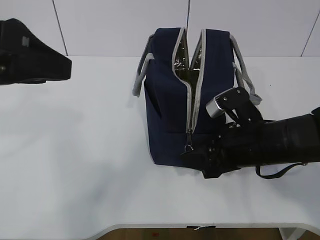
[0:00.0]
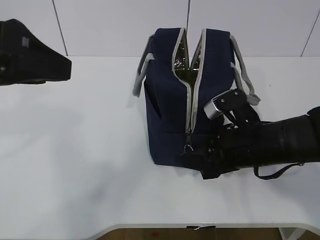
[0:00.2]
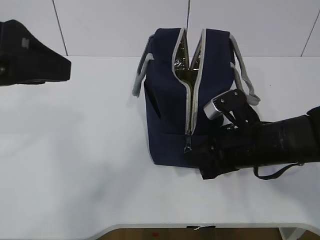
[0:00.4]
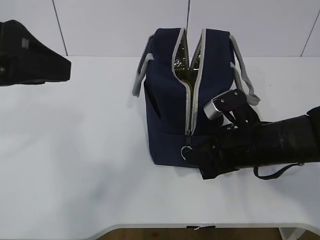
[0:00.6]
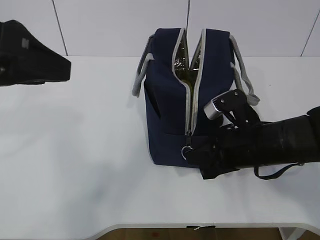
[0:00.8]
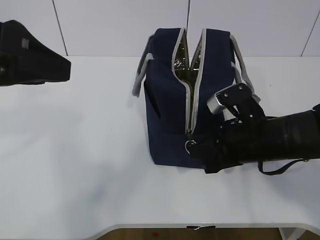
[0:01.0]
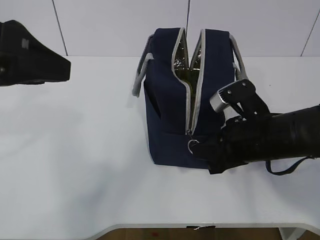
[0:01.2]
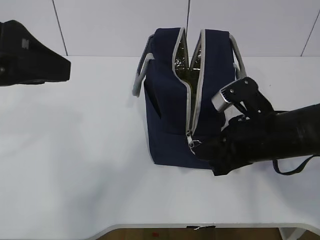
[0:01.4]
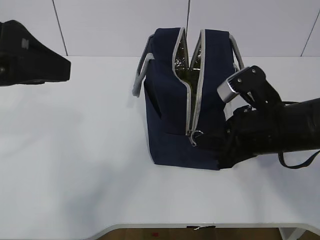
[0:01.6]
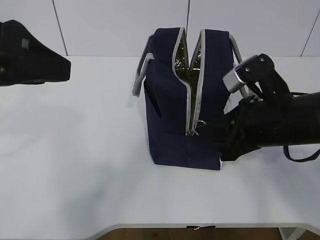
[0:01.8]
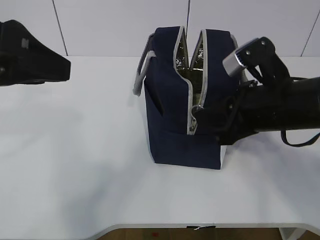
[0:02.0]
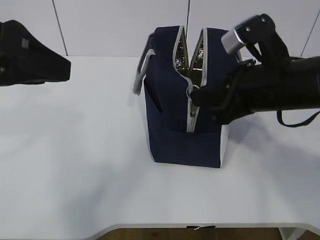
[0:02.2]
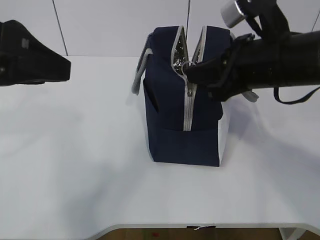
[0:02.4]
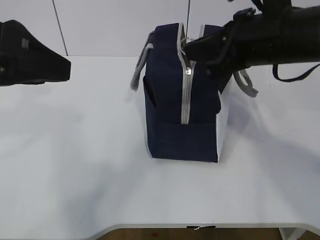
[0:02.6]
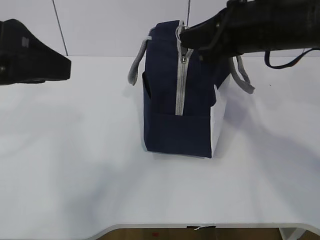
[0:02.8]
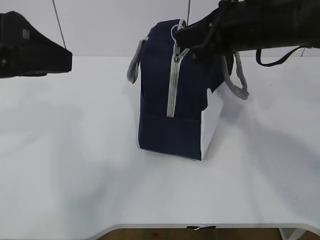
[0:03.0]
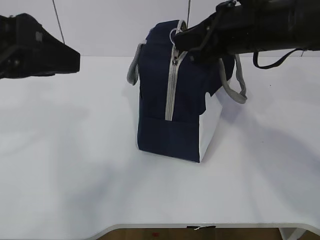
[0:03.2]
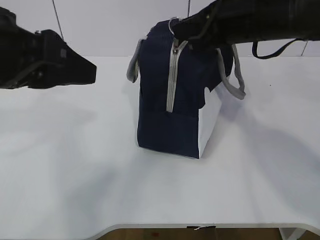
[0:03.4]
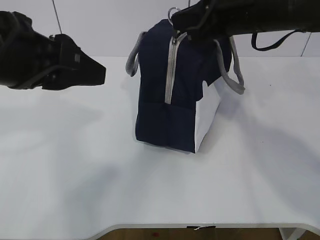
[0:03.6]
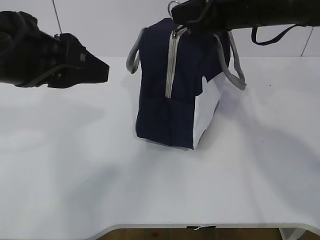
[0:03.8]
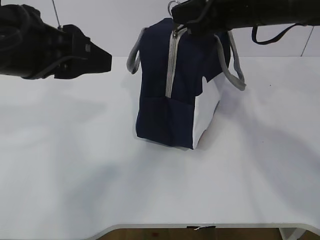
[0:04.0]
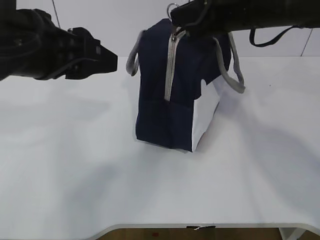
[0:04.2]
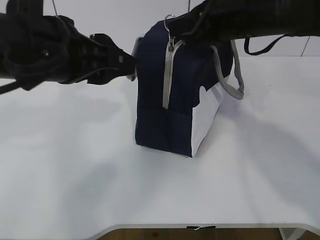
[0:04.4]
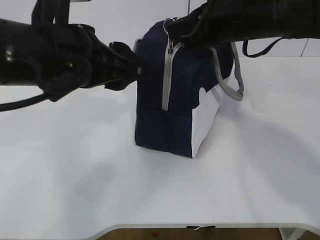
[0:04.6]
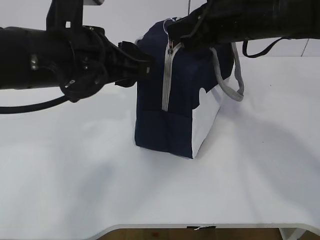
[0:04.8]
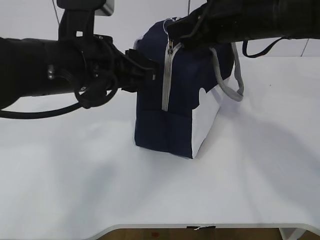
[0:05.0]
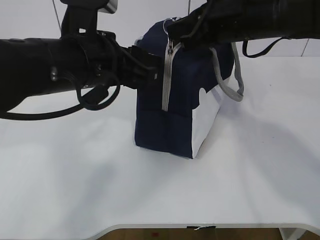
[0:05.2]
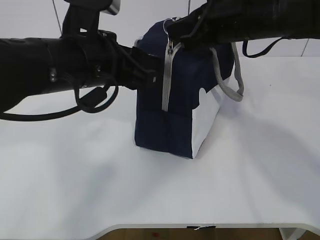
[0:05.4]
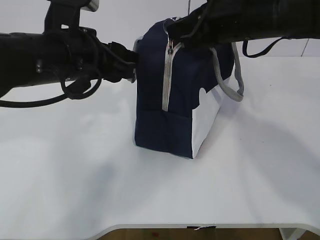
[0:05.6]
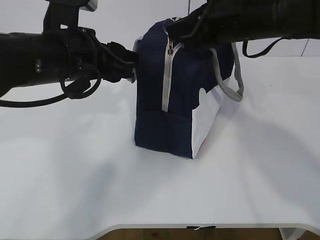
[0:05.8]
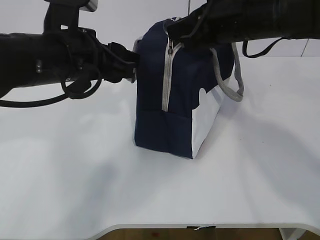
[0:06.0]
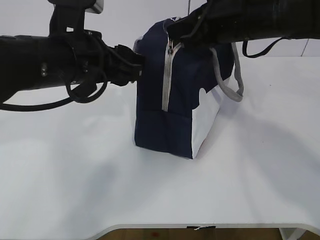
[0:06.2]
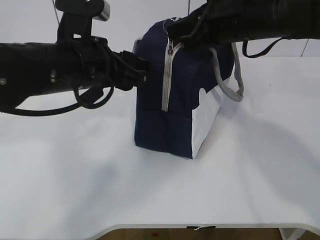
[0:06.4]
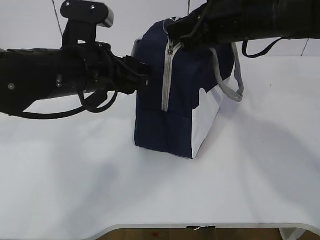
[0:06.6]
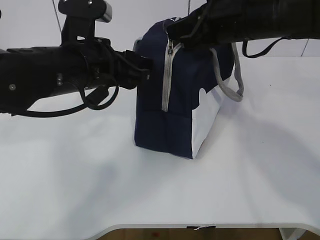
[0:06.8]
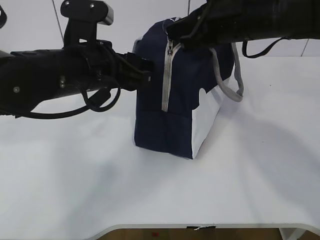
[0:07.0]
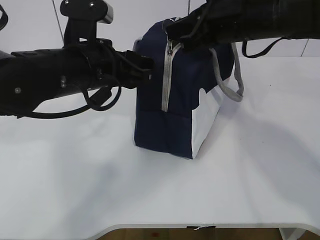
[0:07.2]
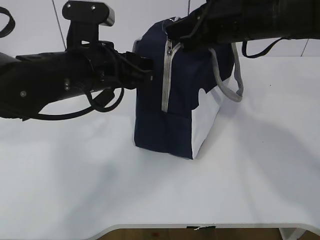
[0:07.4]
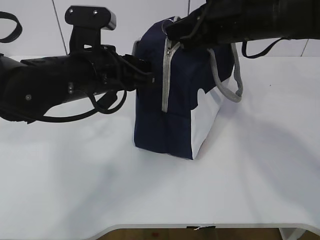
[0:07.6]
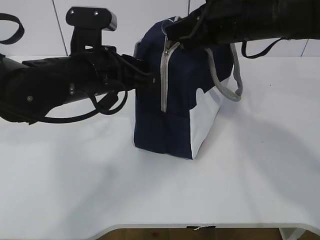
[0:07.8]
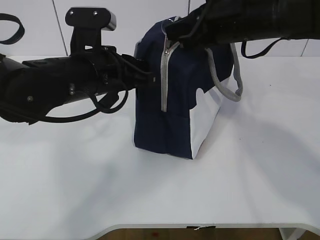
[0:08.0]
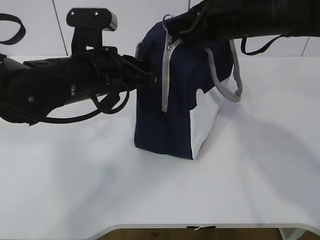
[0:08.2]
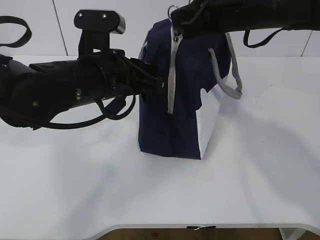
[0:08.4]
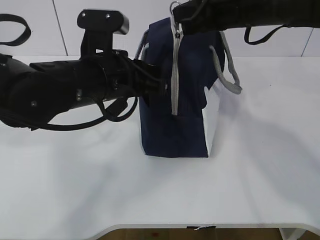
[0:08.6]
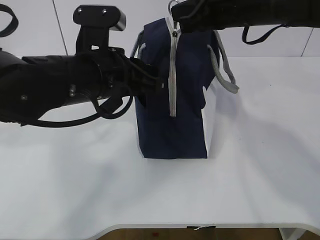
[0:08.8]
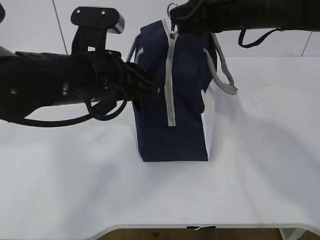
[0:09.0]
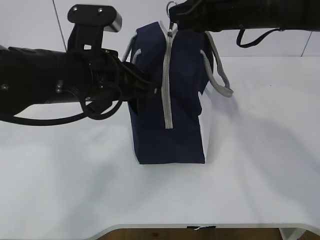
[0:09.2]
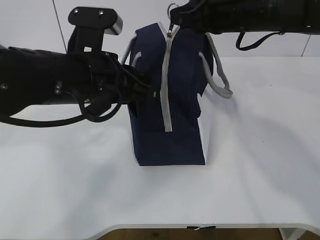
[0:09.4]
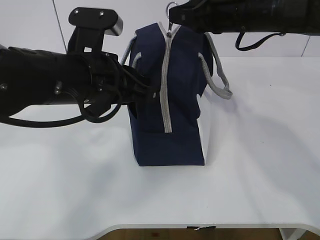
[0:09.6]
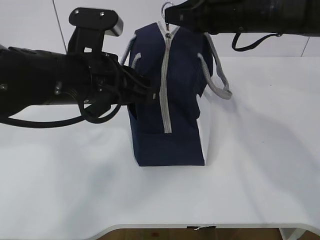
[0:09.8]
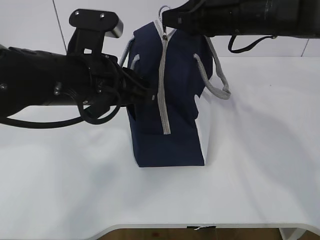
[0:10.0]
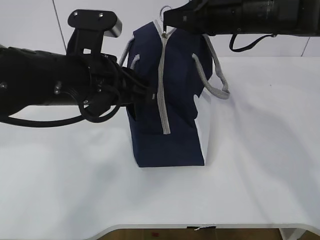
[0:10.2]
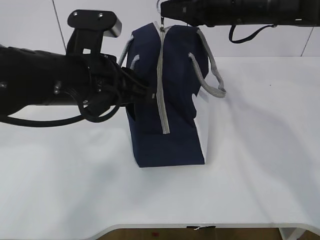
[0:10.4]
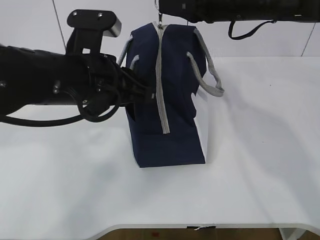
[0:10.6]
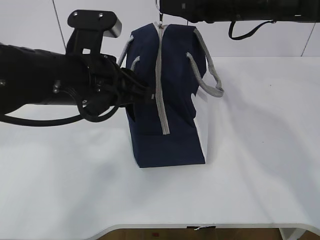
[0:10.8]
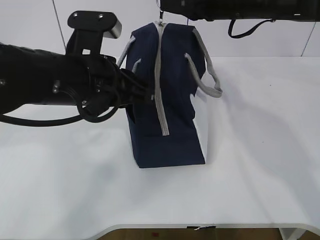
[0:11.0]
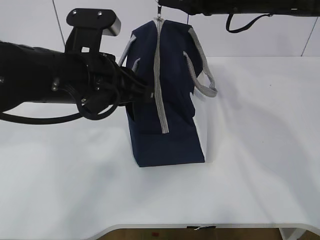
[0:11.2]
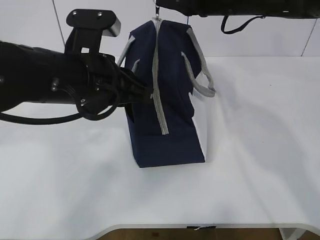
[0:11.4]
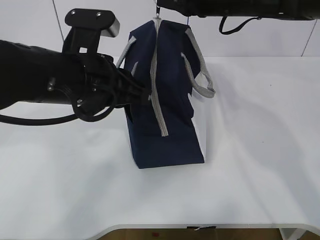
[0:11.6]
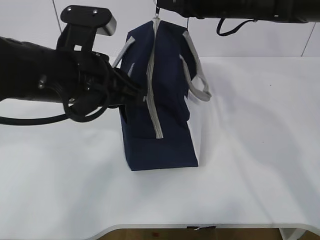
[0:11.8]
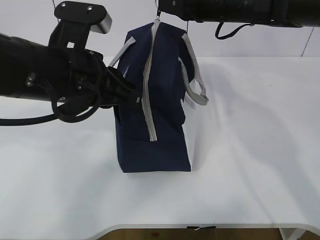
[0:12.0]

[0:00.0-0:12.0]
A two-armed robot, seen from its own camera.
0:00.0 to 0:01.6: The right gripper closes up.
0:01.6 to 0:03.0: The right gripper travels upward and forward by roughly 15 cm.
0:03.0 to 0:04.4: The left gripper heads to the right and forward, covering about 10 cm.
0:04.4 to 0:06.0: The left gripper is displaced forward by some 5 cm.
0:06.0 to 0:07.6: The left gripper closes up.
0:07.6 to 0:09.0: The left gripper closes.
0:09.0 to 0:10.4: The grippers stay close to where they were, moving slightly.
0:10.4 to 0:12.0: The right gripper goes some 5 cm forward.

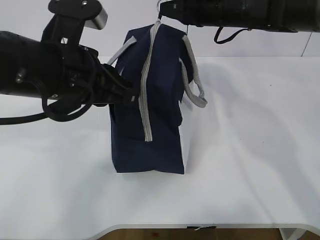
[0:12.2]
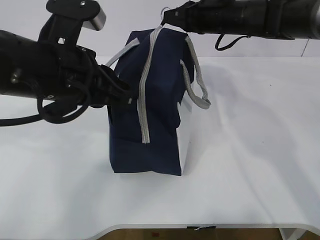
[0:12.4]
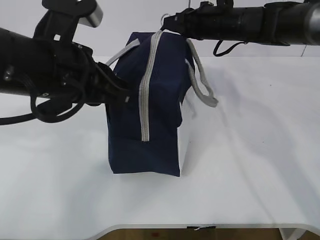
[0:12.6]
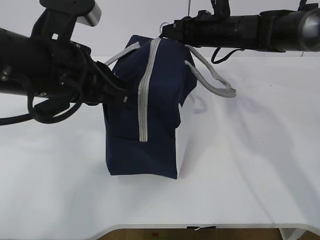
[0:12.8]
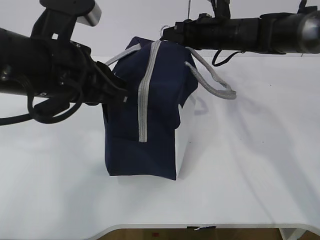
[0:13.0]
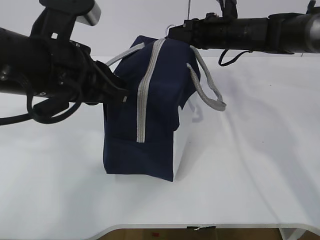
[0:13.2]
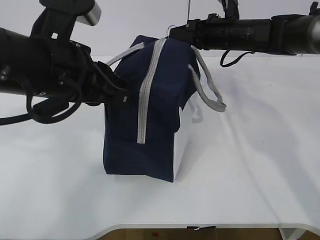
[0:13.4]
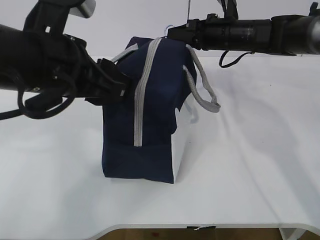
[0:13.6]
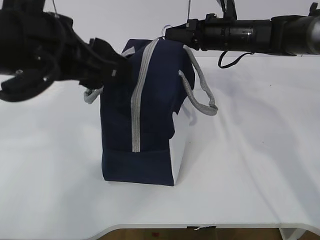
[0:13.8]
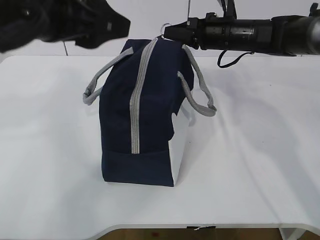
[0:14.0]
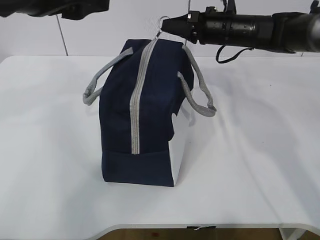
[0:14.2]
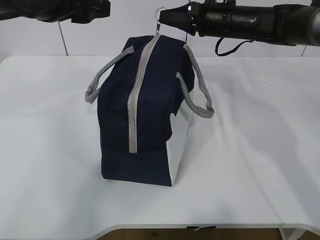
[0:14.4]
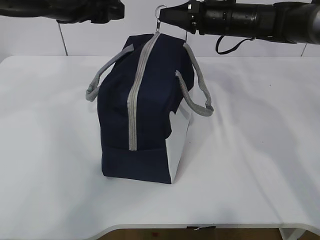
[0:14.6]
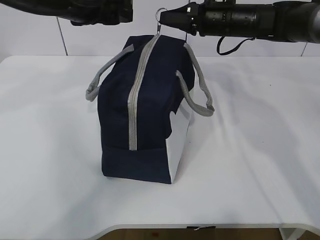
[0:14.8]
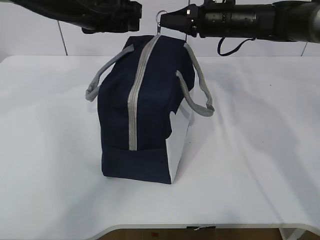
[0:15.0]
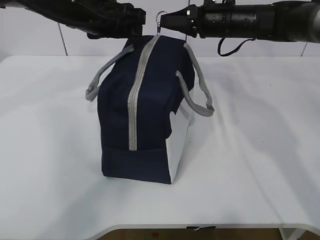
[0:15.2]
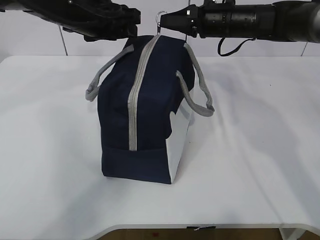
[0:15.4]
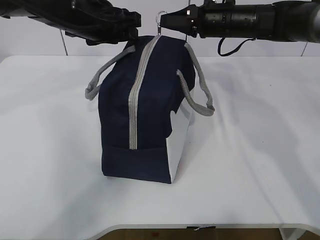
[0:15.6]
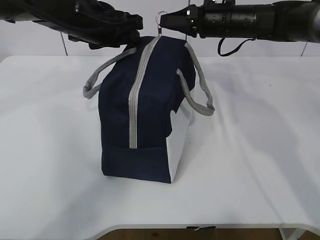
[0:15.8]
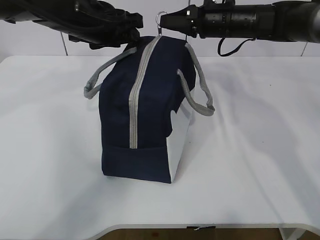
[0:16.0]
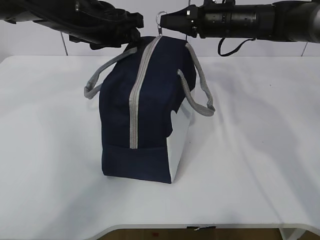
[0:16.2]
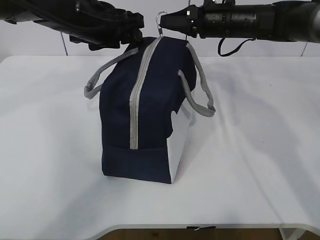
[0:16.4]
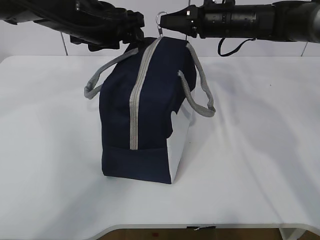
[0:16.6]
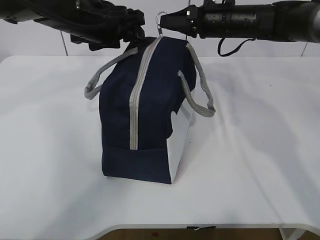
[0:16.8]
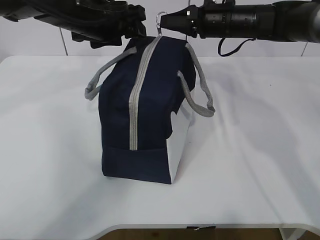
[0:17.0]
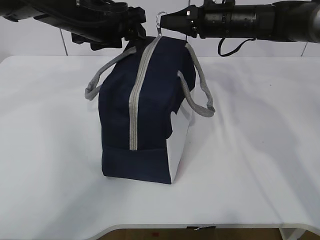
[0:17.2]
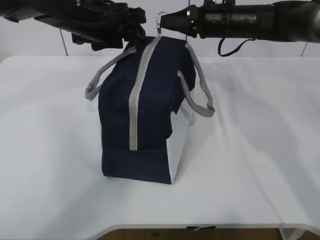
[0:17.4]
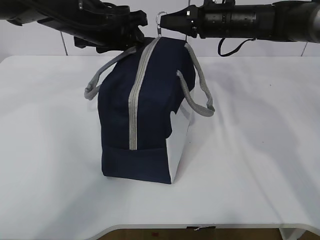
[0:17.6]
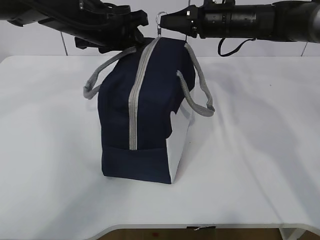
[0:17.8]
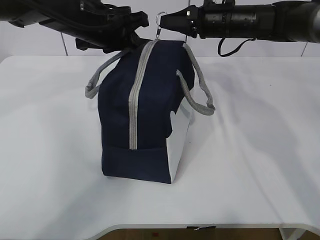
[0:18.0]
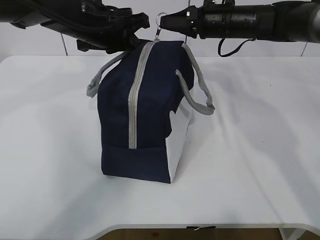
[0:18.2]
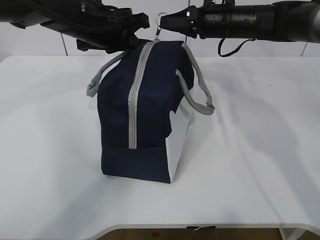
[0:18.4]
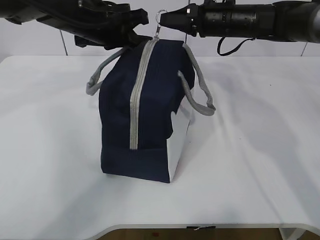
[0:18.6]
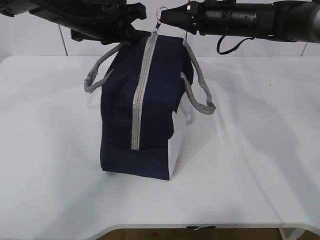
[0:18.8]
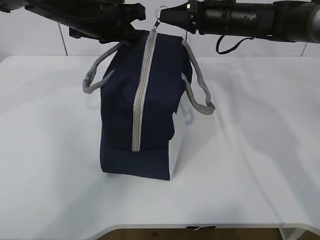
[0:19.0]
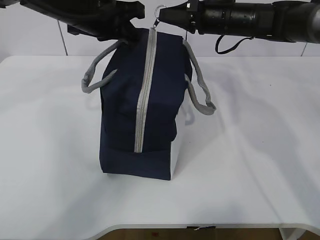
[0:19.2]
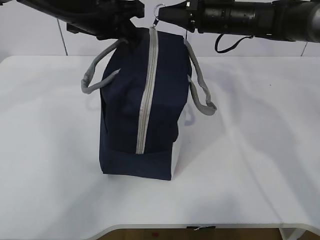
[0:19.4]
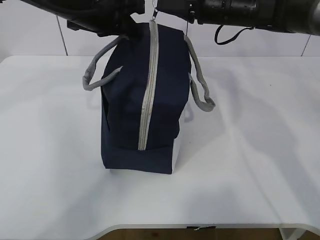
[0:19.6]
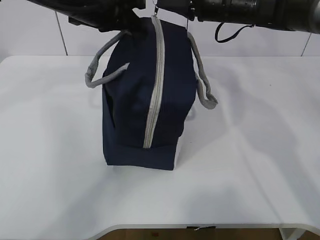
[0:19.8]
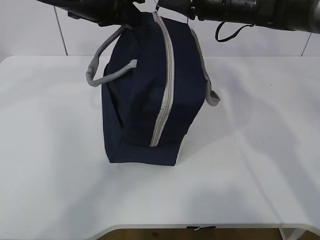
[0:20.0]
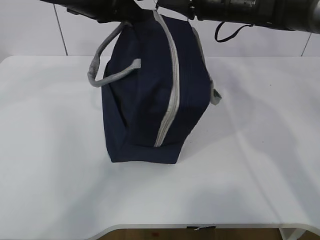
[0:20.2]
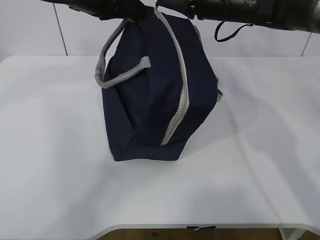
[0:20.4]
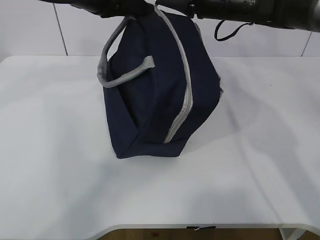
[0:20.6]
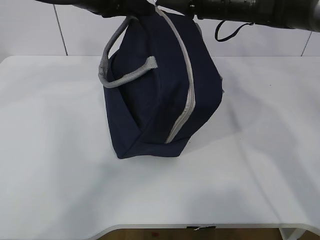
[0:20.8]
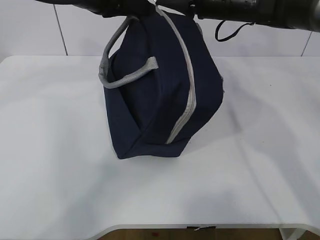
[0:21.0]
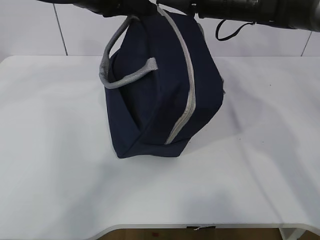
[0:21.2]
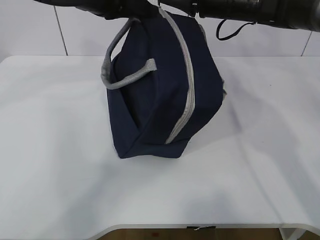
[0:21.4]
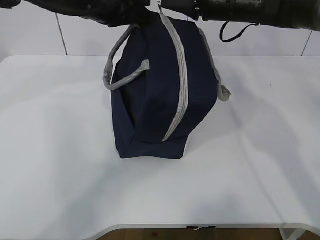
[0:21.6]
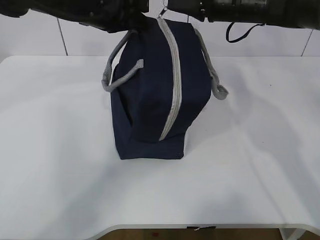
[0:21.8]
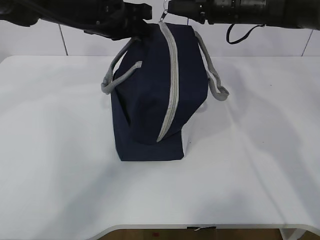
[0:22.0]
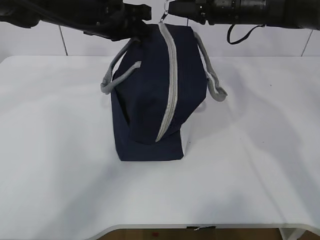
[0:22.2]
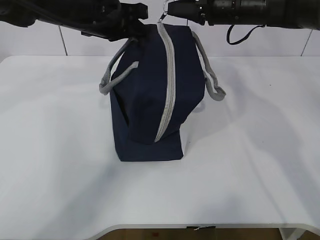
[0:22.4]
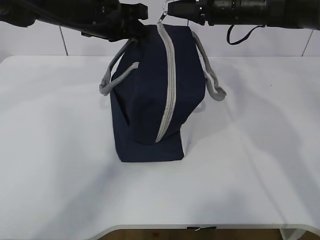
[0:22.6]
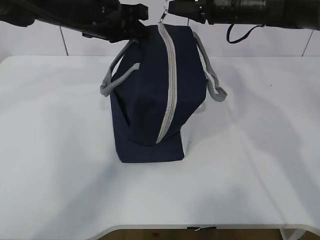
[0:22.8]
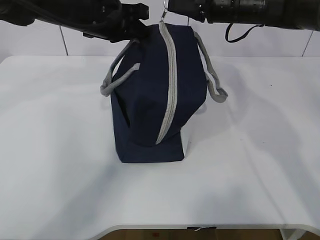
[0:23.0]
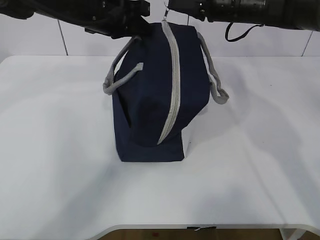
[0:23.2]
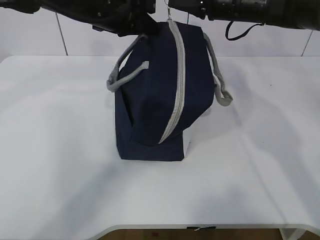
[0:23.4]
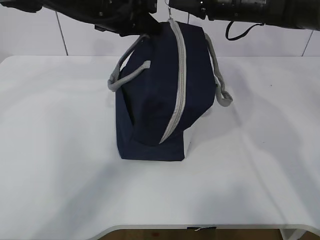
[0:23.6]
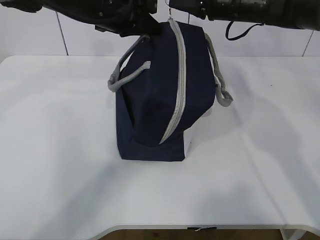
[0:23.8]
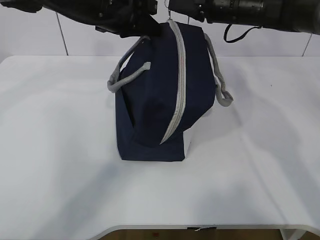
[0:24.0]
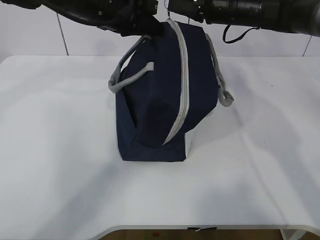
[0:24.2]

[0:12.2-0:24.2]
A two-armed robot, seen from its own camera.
Step, 0:12.2 to 0:14.2: Pull the zipper with your right hand.
Step, 0:14.4 to 0:15.0: Grab the lunch bag with your left hand.
0:12.2 to 0:13.8: The left gripper opens. The right gripper moves downward, approximately 5 cm.
0:13.8 to 0:15.2: The left gripper heads forward, covering some 15 cm.
0:15.2 to 0:16.6: There are only small adjustments of the grippers.
0:16.6 to 0:18.2: The left gripper closes its fingers.
0:18.2 to 0:19.8: The left gripper moves approximately 5 cm.
0:19.8 to 0:21.2: The grippers make only small movements.
0:21.2 to 0:22.6: The left gripper travels downward by some 5 cm.
0:22.6 to 0:24.2: The grippers make only small movements.
